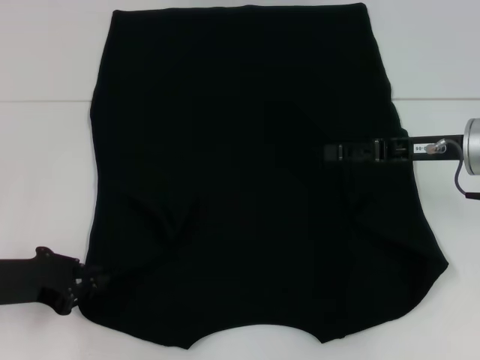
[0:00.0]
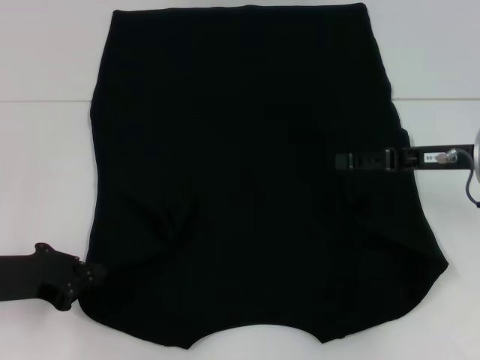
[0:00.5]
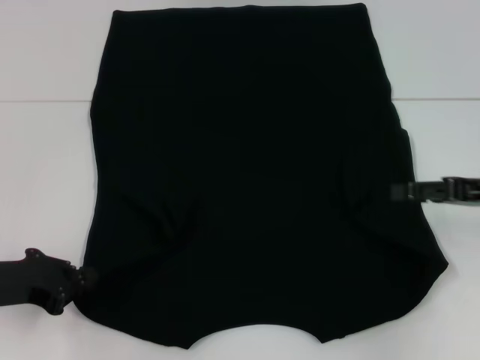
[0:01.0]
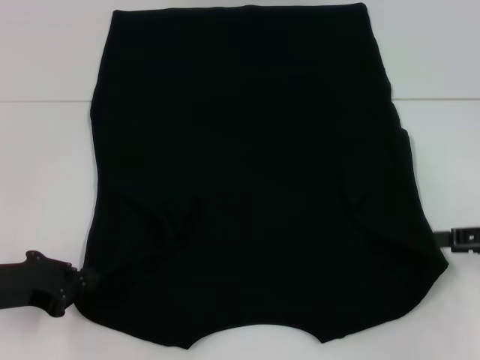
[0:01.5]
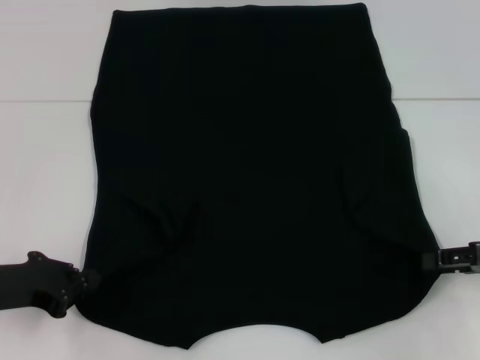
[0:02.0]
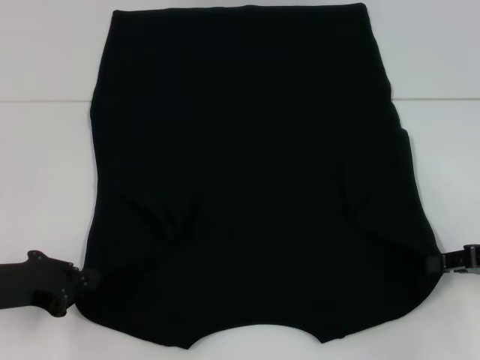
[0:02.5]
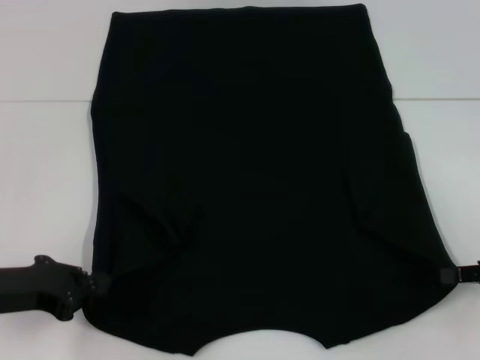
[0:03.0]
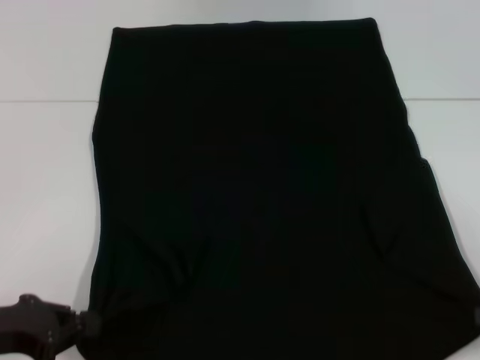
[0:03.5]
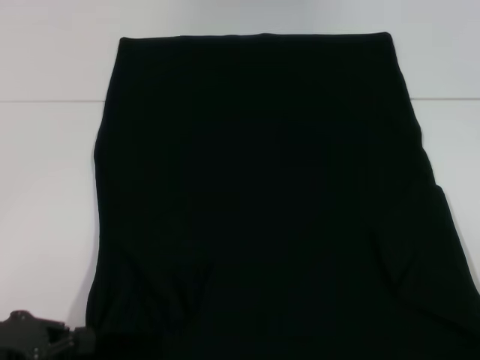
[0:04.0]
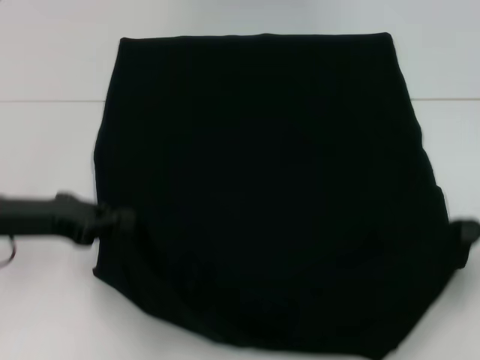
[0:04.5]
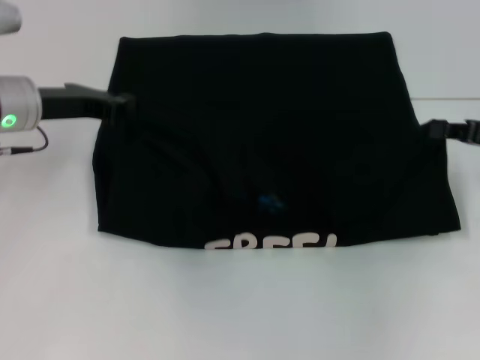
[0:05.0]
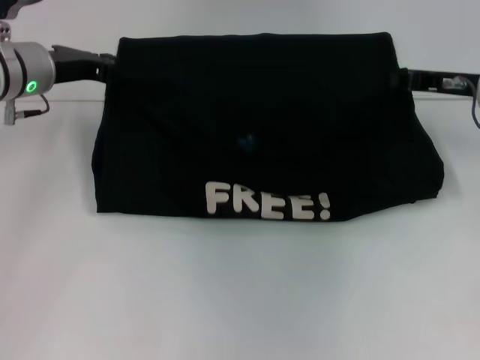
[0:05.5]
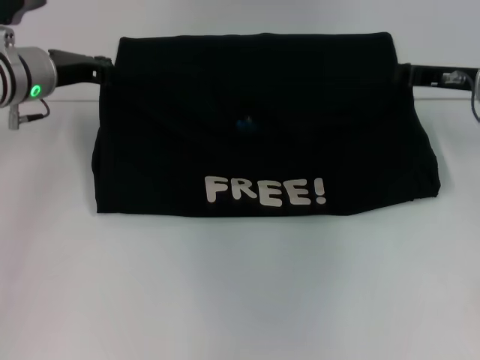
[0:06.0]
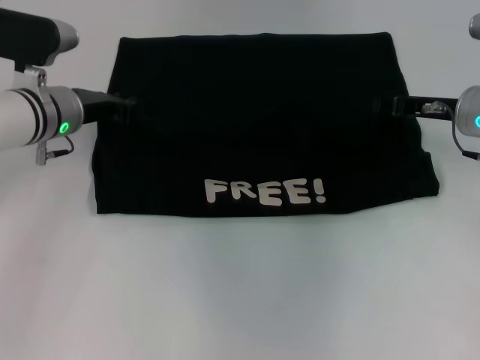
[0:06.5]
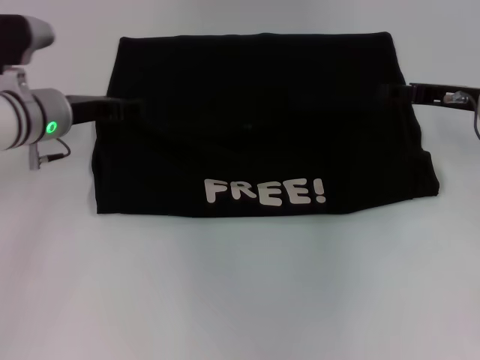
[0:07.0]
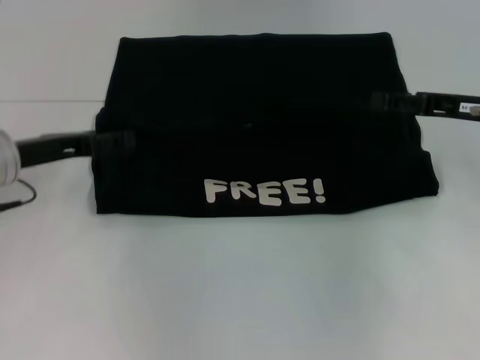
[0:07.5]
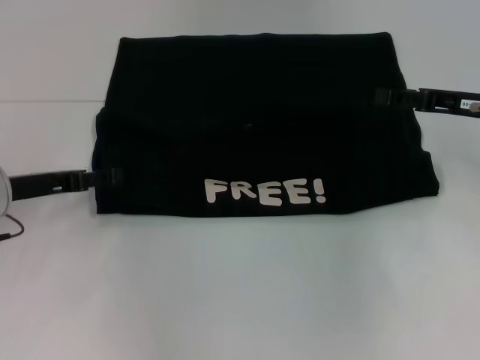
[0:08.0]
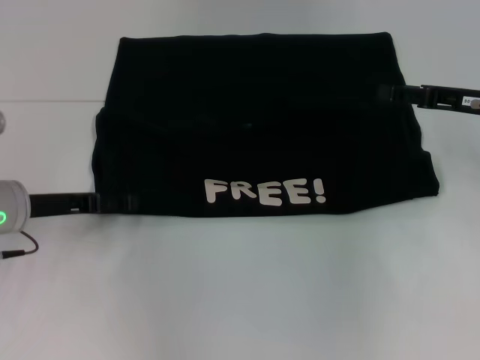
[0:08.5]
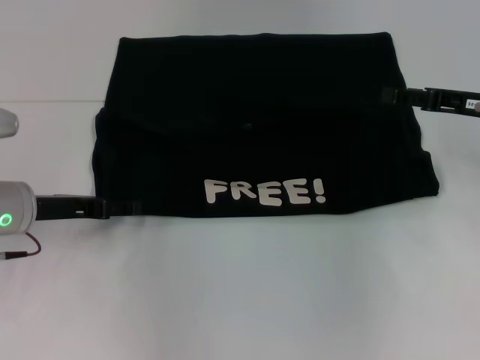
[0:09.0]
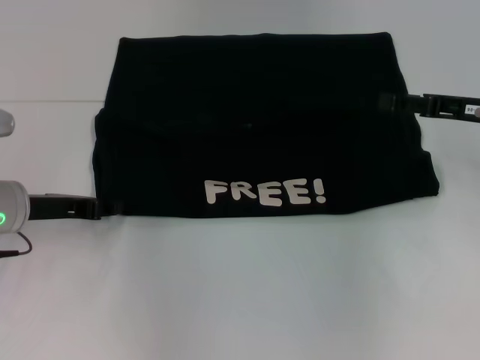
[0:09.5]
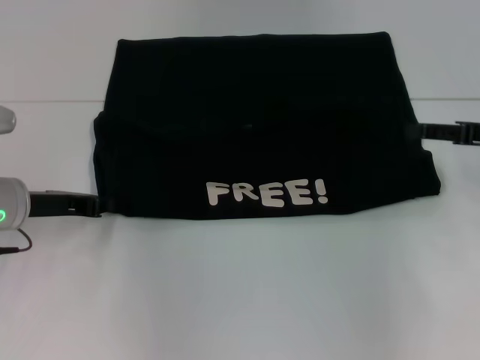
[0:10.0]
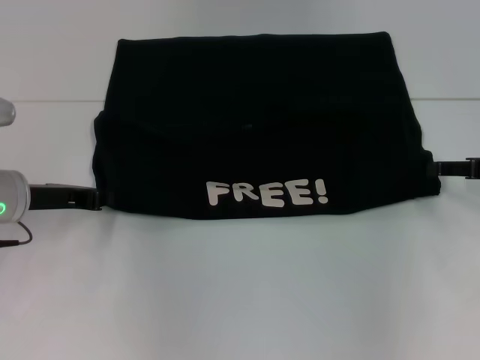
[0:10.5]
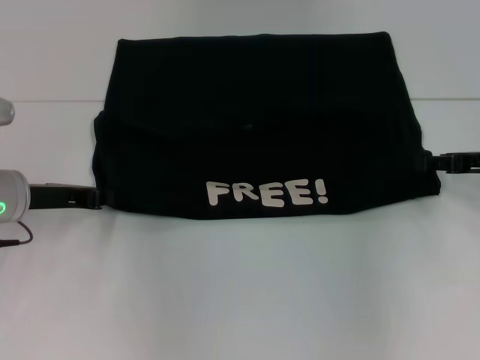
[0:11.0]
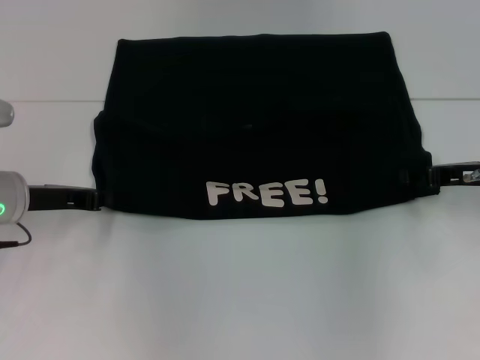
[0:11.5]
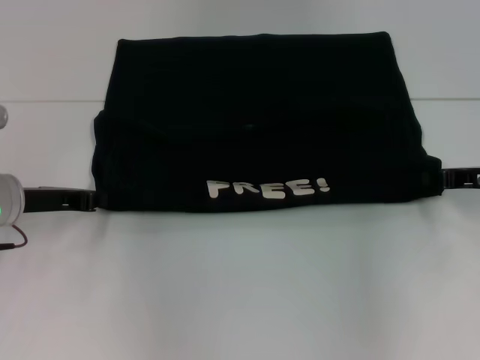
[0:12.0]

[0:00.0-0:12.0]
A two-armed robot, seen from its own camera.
Step, 1.5 to 2.5 s: Grab the bottom right corner with your right hand.
Step, 3.0 to 7.0 s: Fold the clothes with your left hand.
Step, 3.0 to 7.0 s: Fold the clothes with your right hand.
0.0 to 2.0 s: The right gripper travels to the right and backward by approximately 10 cm.
2.0 to 4.0 s: The left gripper goes about 5 cm backward, while the right gripper goes approximately 10 cm backward and to the right, and closes up.
4.0 to 6.0 s: The right gripper is displaced forward and to the left by some 30 cm. Meanwhile the left gripper moves forward, roughly 25 cm.
6.0 to 8.0 s: The right gripper shifts by approximately 5 cm, and opens its fingers. Meanwhile the left gripper is displaced backward and downward by about 10 cm, and opens.
8.0 to 10.0 s: The left gripper closes.
10.0 to 12.0 s: The right gripper ends up approximately 5 cm from where it was, and closes up.

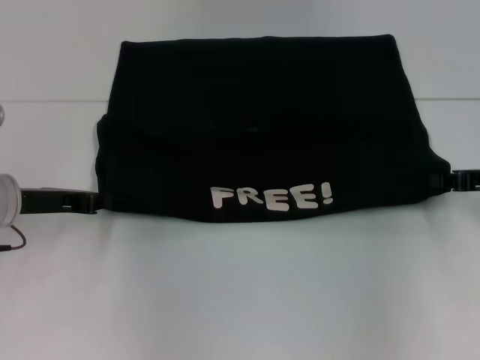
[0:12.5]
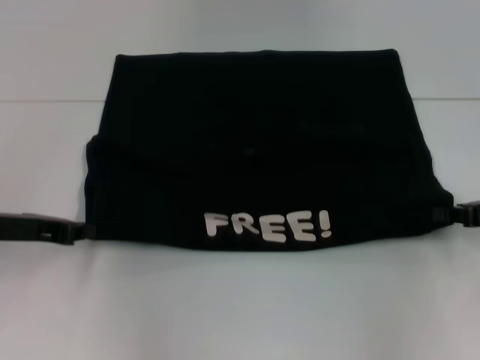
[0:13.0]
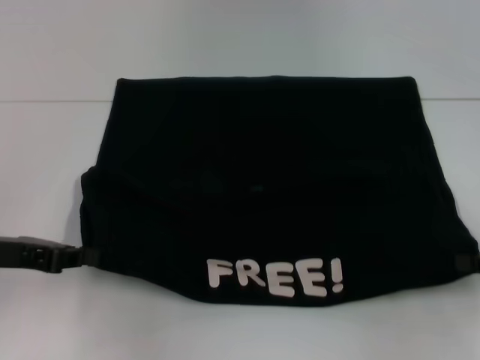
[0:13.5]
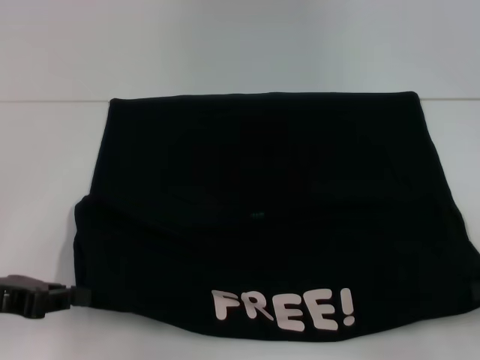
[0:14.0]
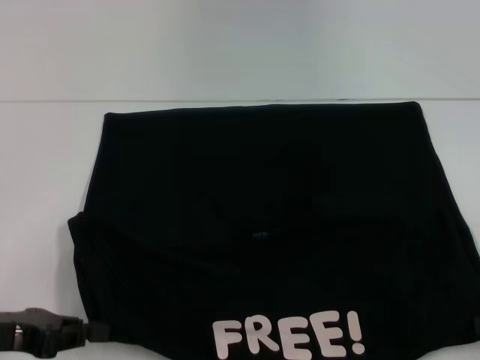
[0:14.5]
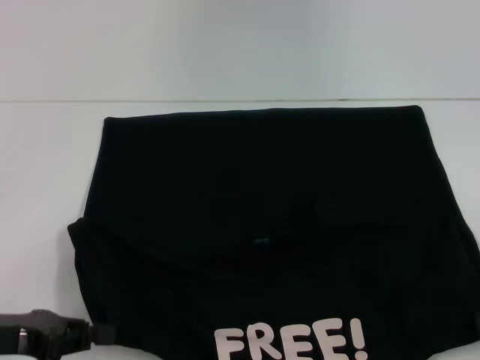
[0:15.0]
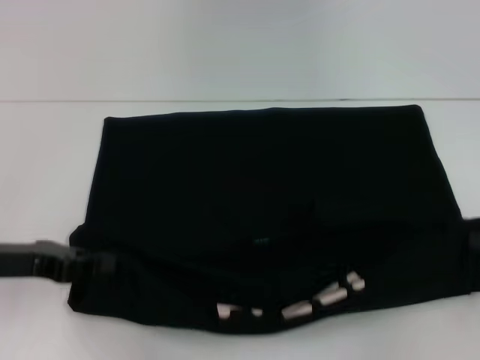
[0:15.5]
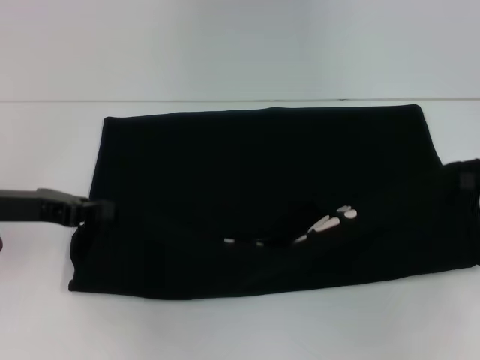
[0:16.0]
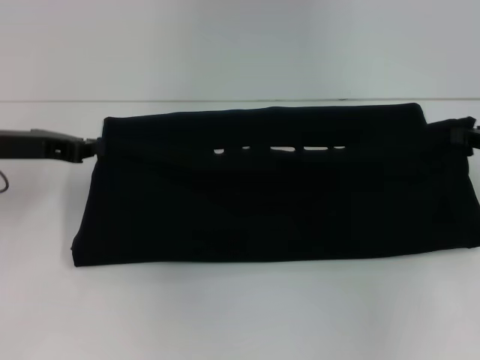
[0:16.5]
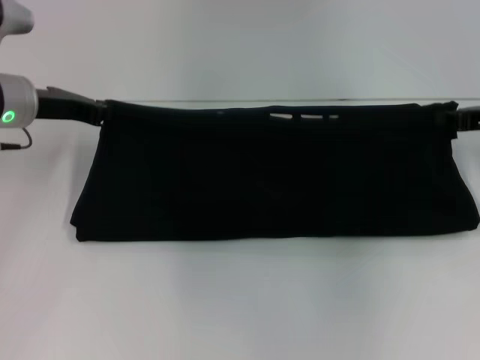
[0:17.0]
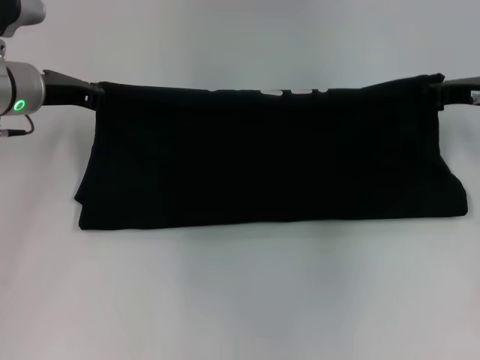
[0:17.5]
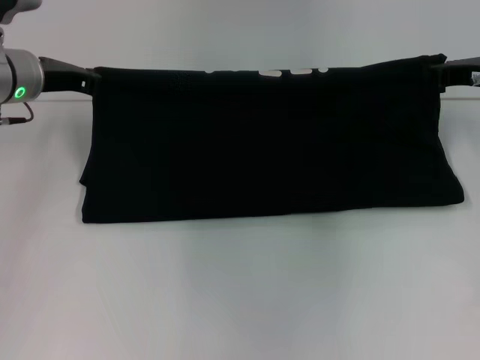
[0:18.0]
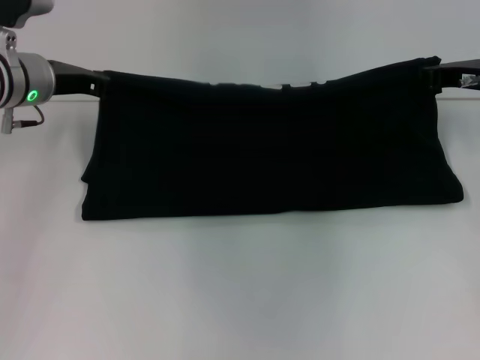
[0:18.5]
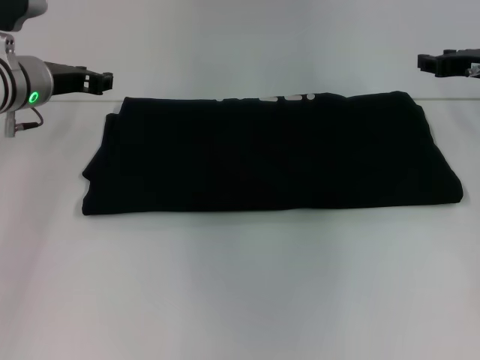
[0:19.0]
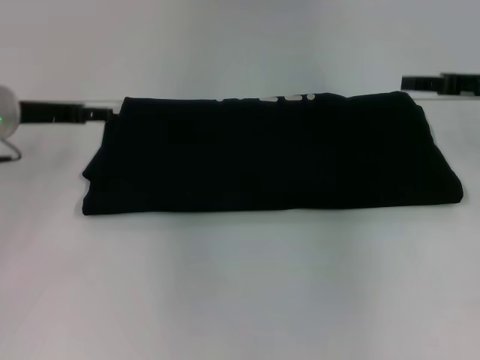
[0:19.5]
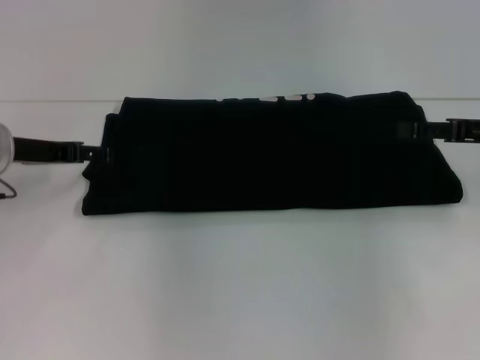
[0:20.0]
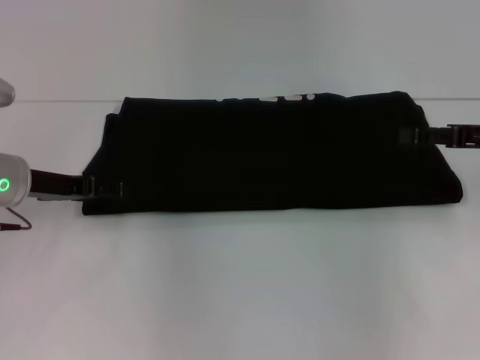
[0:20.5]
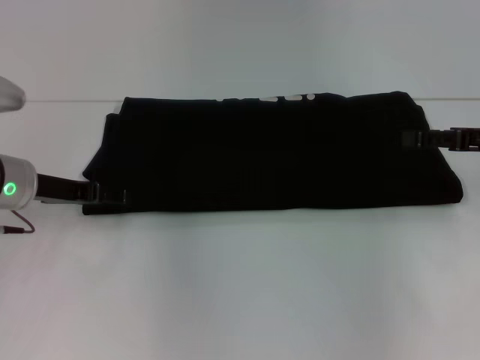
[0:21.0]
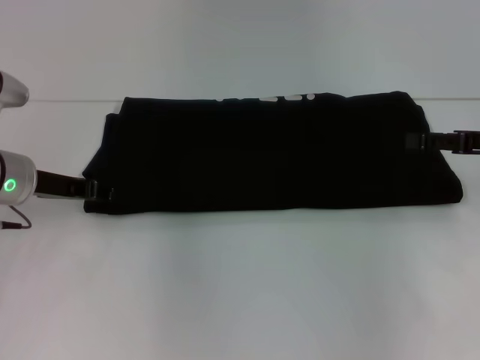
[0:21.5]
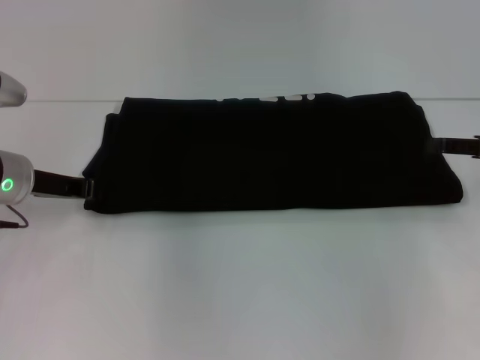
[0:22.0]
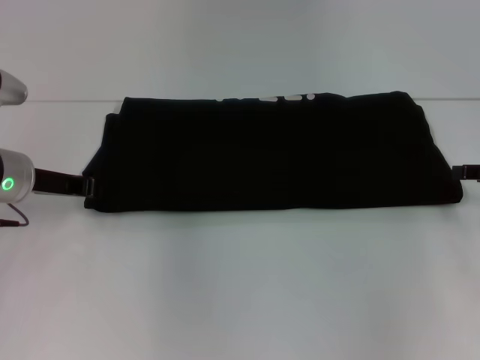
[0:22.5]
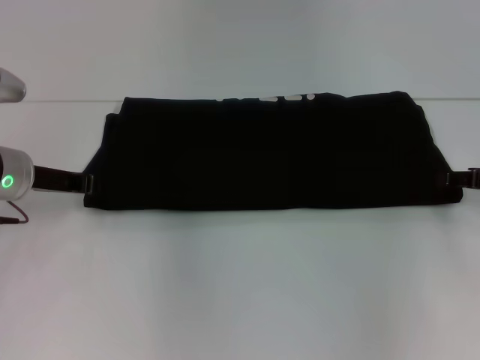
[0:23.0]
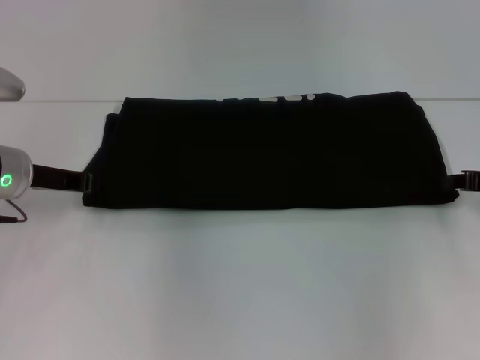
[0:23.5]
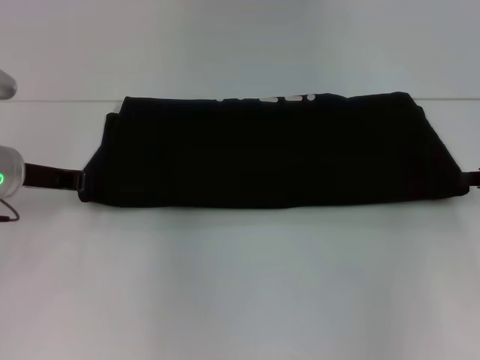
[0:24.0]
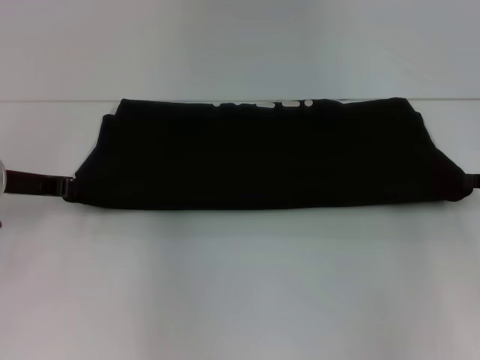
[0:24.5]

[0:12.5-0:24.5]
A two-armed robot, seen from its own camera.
Step, 12.5 to 15.0 s: Pull the clothes with your left hand.
Step, 12.5 to 15.0 s: Pull the clothes with your right hand.
Step, 15.5 to 19.0 s: Fold the clothes with your right hand.
12.5 to 14.5 s: The grippers both shift backward by about 15 cm.
14.5 to 16.5 s: The two grippers go some 15 cm forward.
16.5 to 18.5 s: The right gripper goes about 10 cm forward and to the left; the left gripper shifts some 10 cm forward and to the right.
18.5 to 20.5 s: Both grippers travel together backward, approximately 10 cm. The left gripper opens. Meanwhile the right gripper opens.
20.5 to 22.5 s: The right gripper changes place by approximately 5 cm, while the left gripper closes.
22.5 to 24.5 s: The right gripper closes.

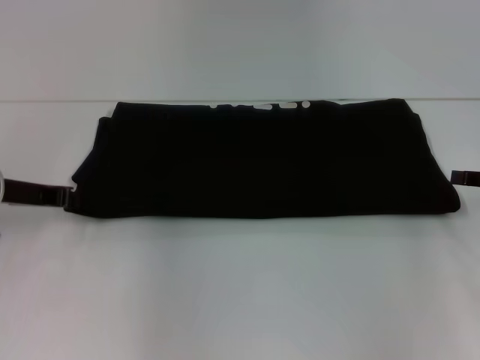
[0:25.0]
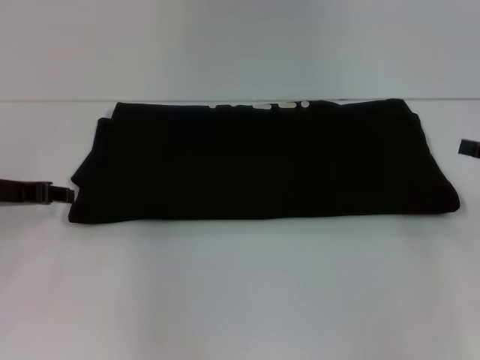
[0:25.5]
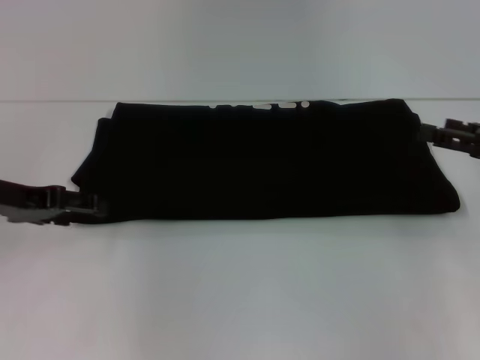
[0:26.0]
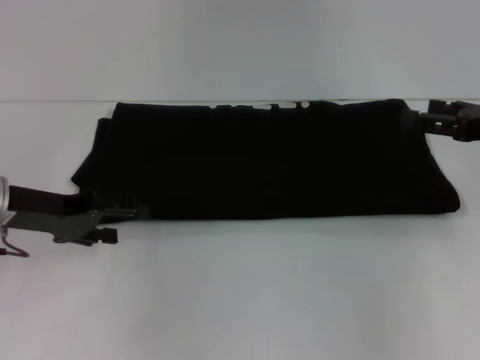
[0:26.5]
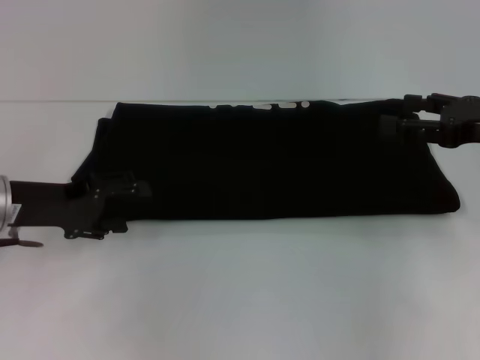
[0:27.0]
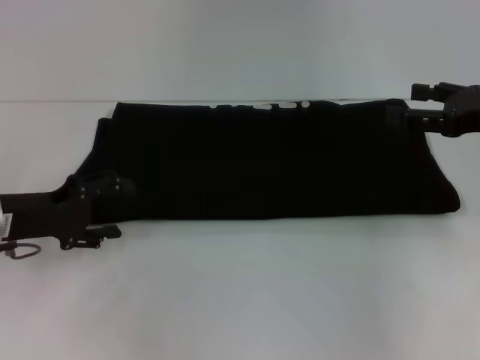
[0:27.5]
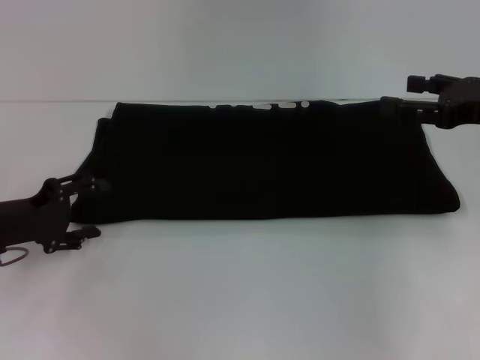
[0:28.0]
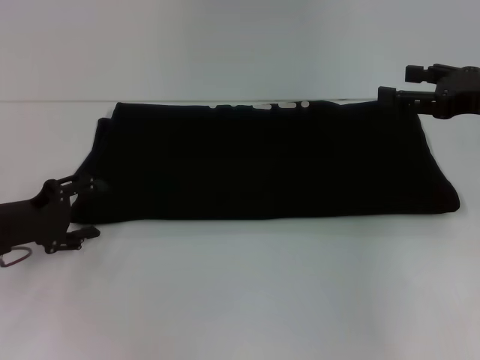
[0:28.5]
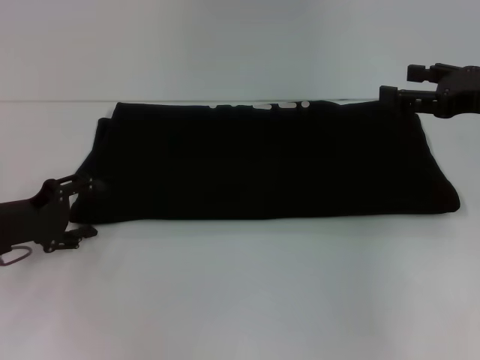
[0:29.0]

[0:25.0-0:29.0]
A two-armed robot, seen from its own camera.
25.0 to 27.0 s: The left gripper opens up; the right gripper shifts roughly 10 cm upward and to the left, and opens up.
27.0 to 29.0 s: The left gripper moves roughly 5 cm.
